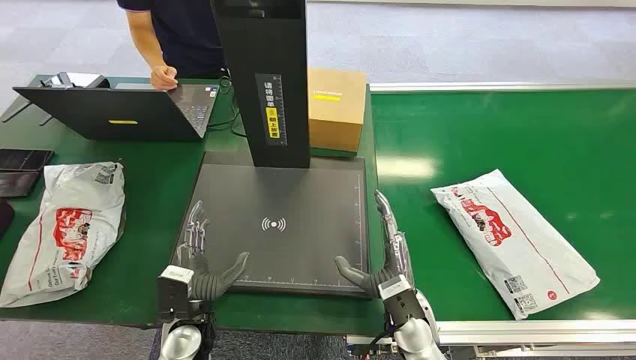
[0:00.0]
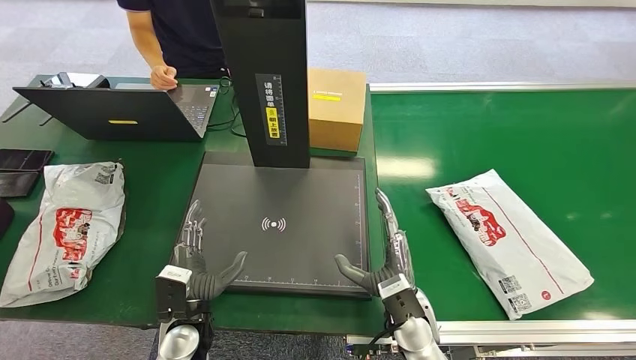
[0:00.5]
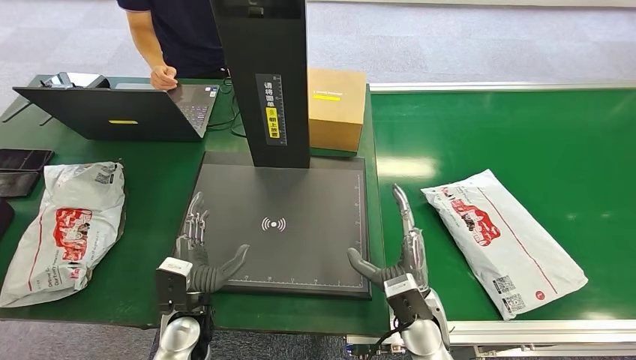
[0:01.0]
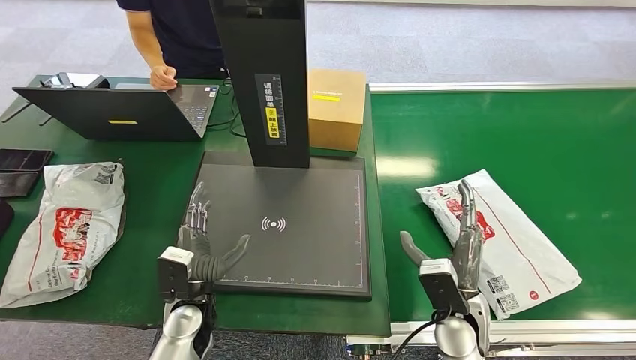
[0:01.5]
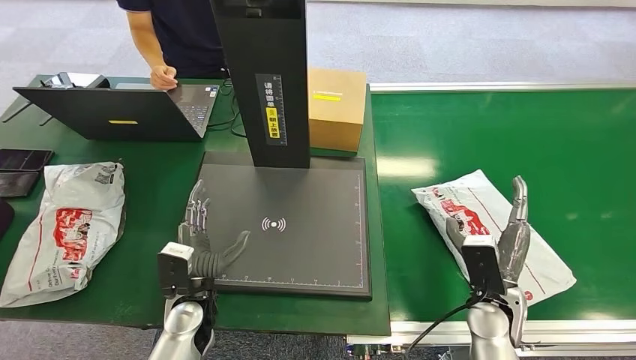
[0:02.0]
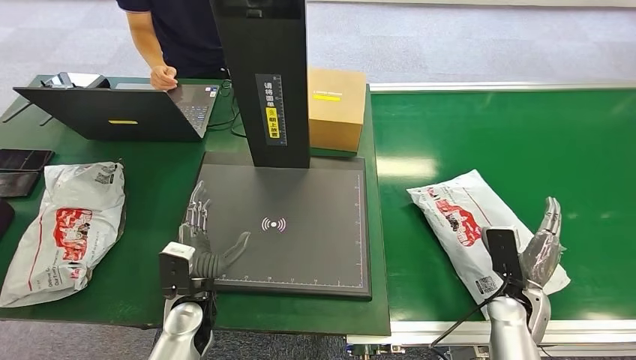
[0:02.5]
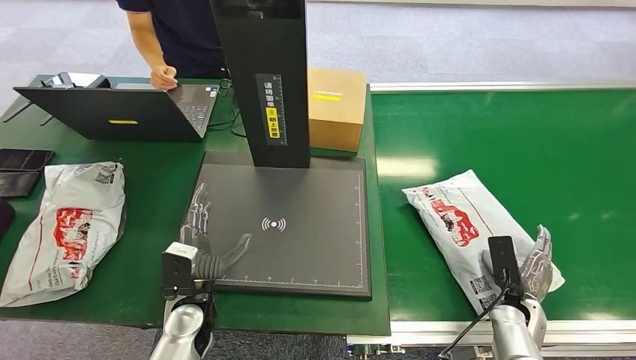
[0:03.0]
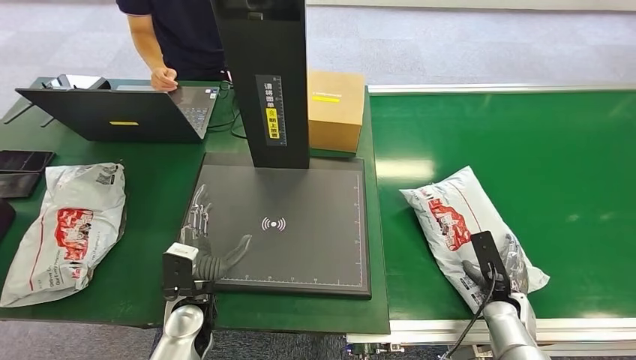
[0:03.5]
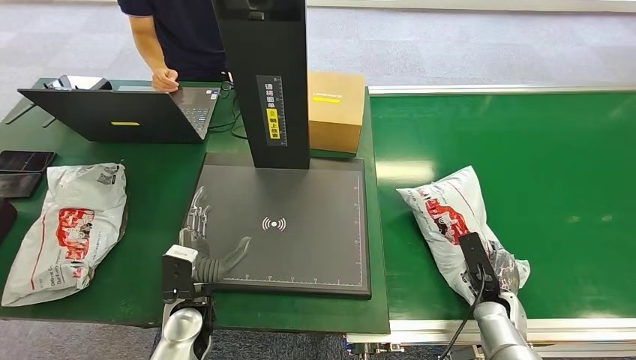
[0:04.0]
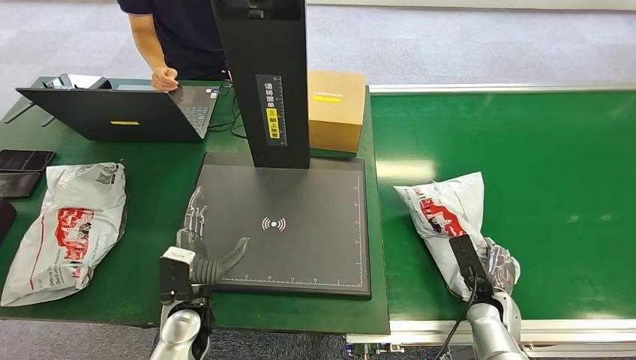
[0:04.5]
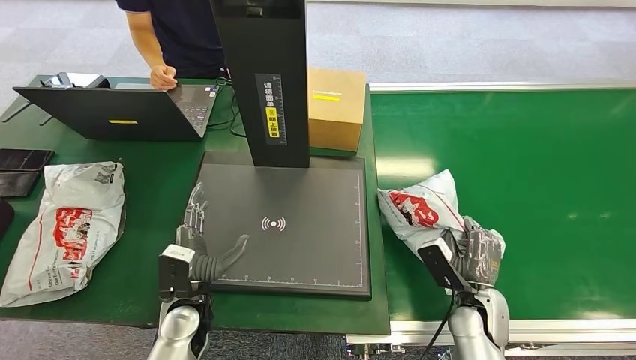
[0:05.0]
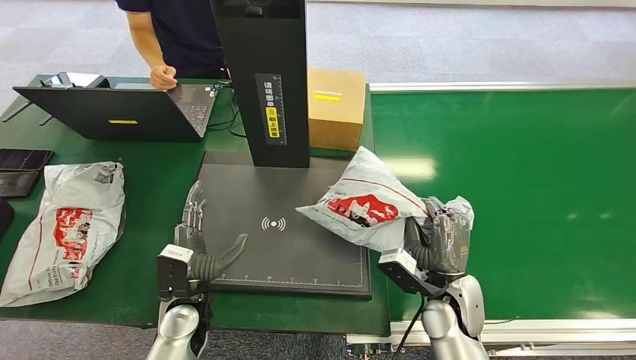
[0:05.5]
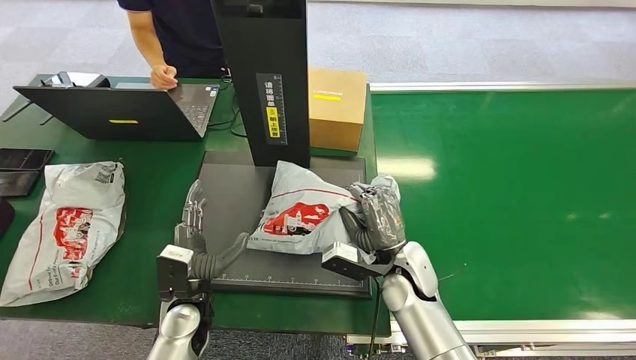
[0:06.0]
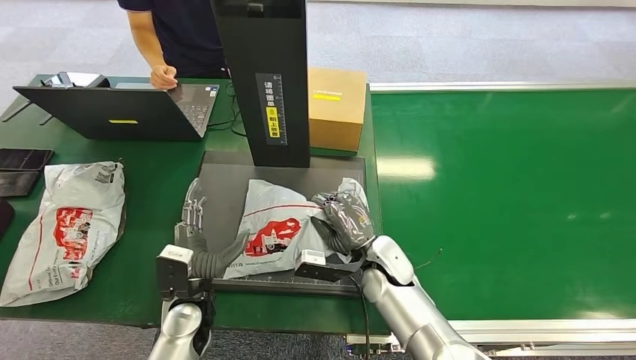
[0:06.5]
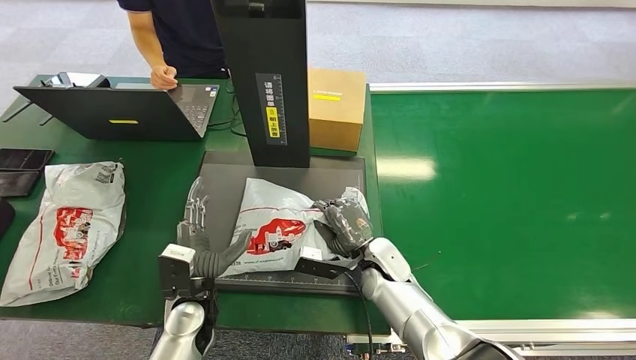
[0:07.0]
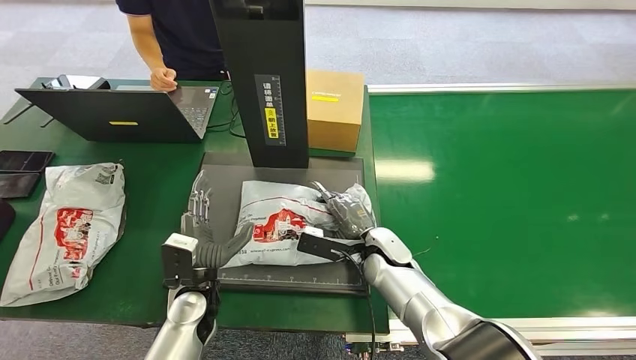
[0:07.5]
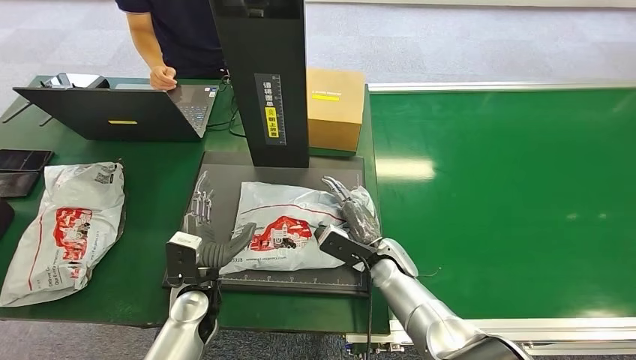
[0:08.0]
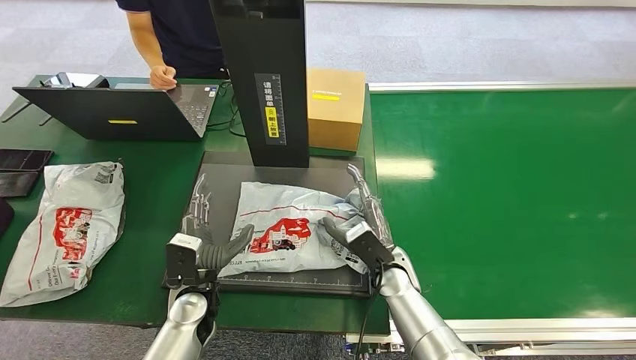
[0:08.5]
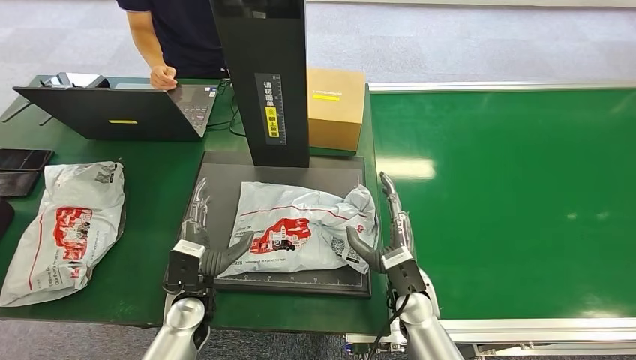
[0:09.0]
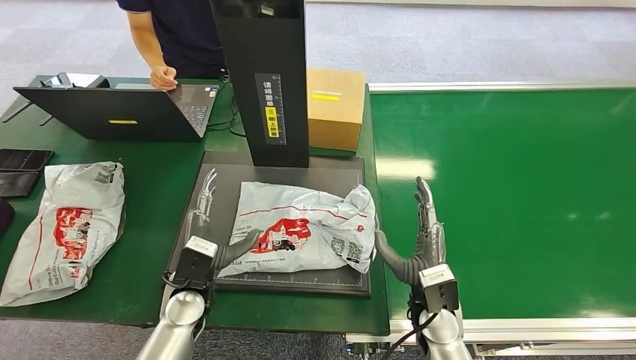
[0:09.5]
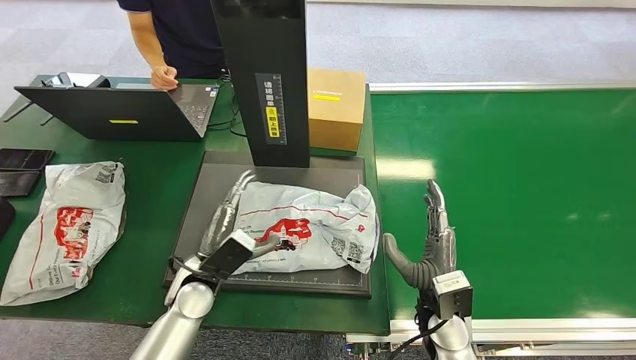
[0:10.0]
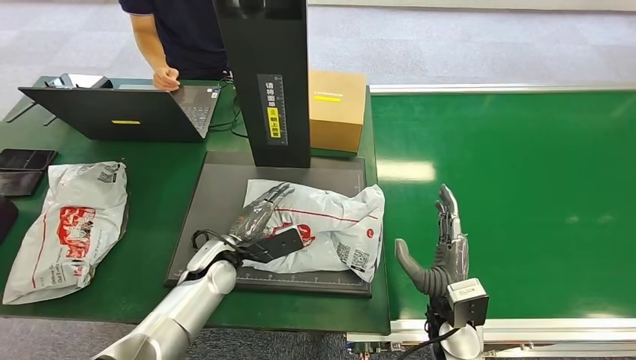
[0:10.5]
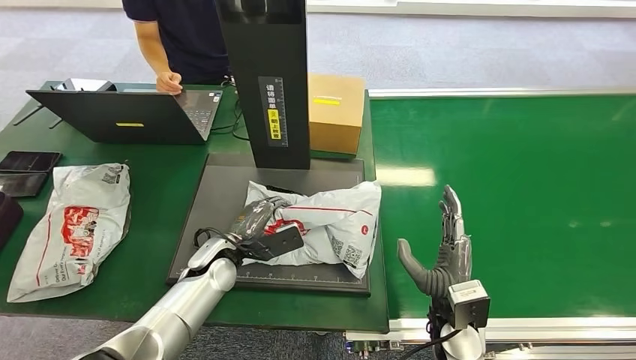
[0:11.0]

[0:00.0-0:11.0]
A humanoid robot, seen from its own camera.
Step, 0:00.0 to 0:05.0: Pick up the package from the conveyor belt.
Step, 0:05.5 to 0:08.5: Place the package onto the inbound machine.
0:02.0 to 0:03.5: The right hand is displaced downward and to the right by approximately 15 cm.
0:03.5 to 0:05.5: The right hand travels to the left and upward by roughly 20 cm.
0:05.5 to 0:07.5: The right hand goes some 15 cm to the left and forward.
0:07.5 to 0:09.0: The right hand travels backward by about 10 cm.

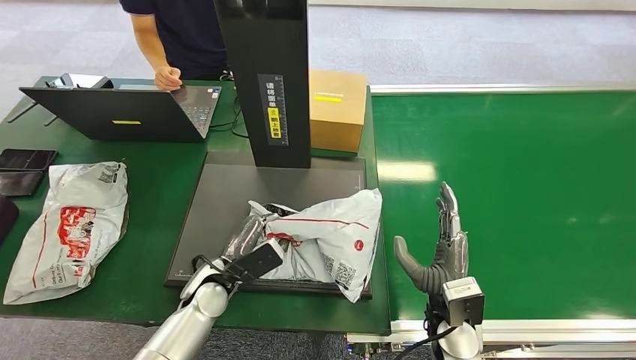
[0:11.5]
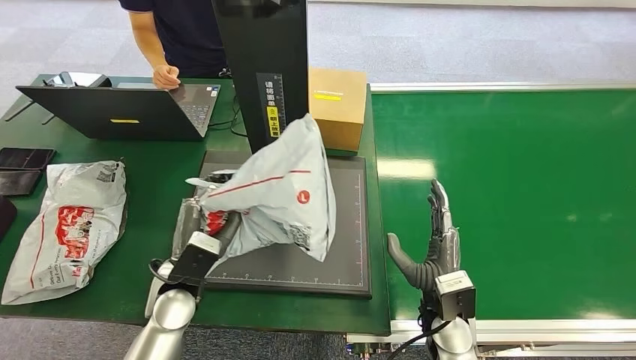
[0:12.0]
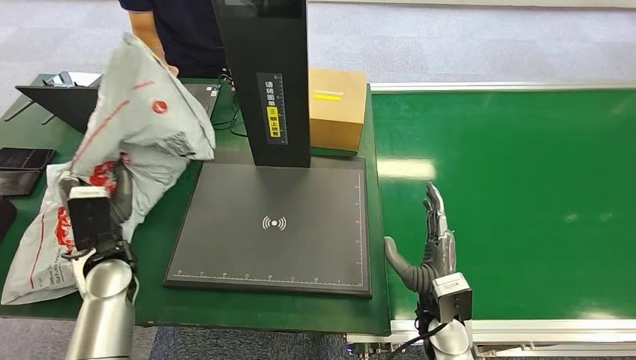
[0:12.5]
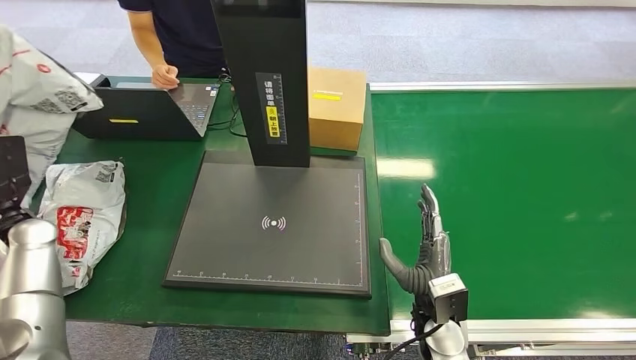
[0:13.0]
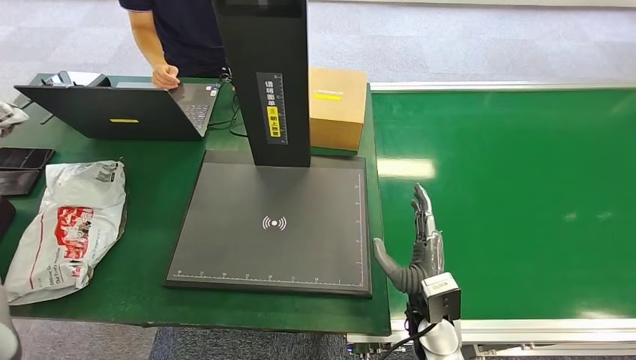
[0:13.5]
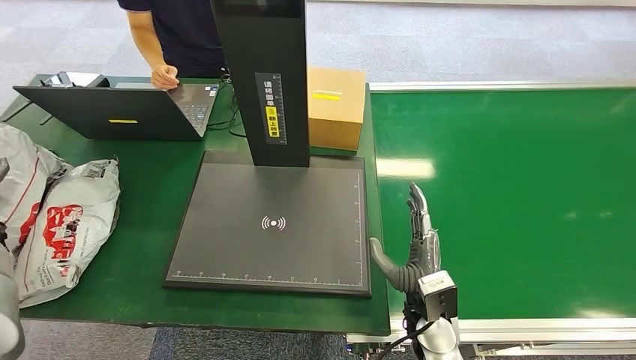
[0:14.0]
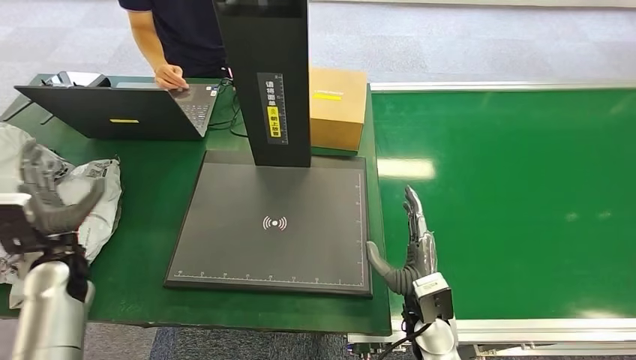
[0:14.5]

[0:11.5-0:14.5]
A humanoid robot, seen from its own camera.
Step, 0:12.0 to 0:14.0: Place the package into the parcel locker.
0:13.0 to 0:14.5: The left hand is displaced downward by about 5 cm, and moves roughly 10 cm to the left and comes back.
